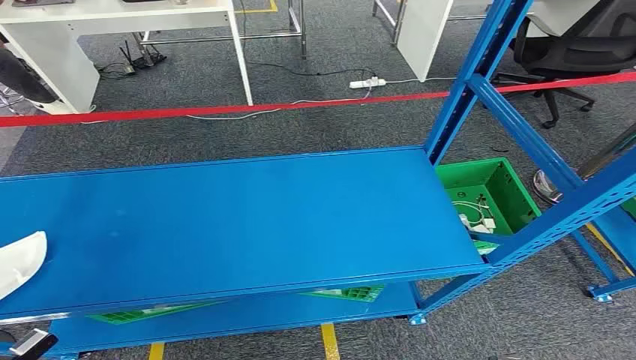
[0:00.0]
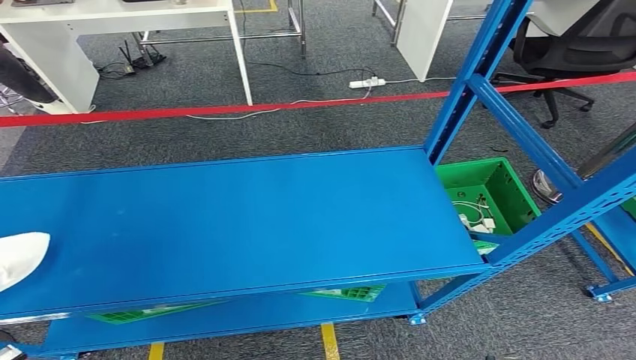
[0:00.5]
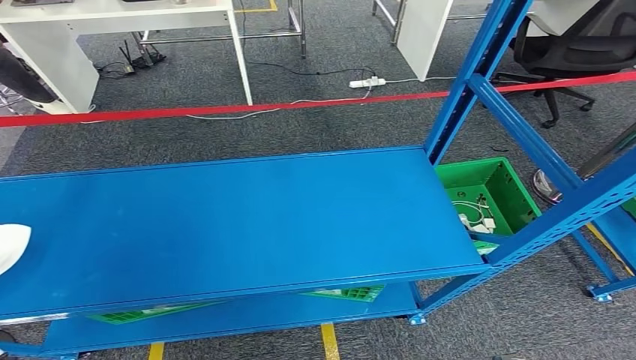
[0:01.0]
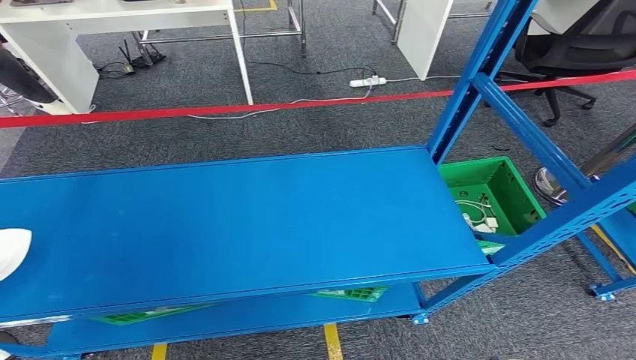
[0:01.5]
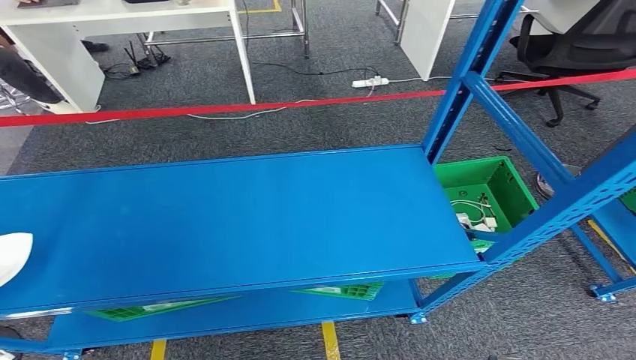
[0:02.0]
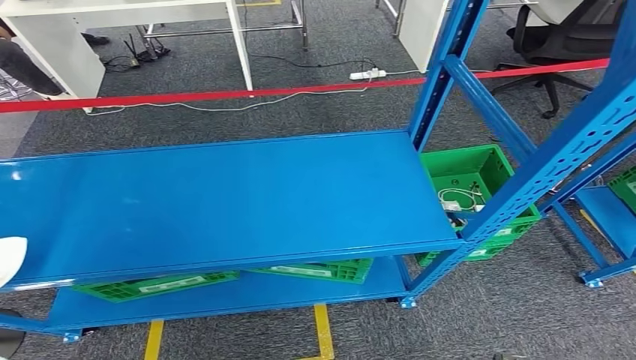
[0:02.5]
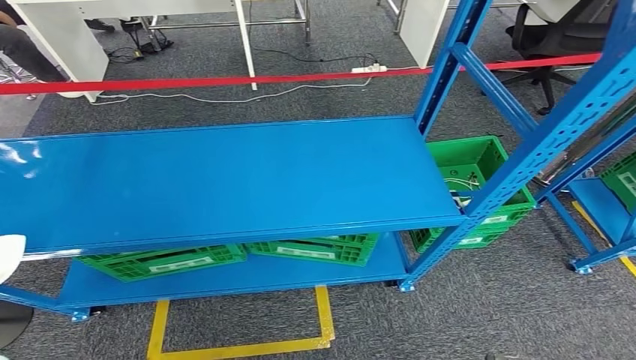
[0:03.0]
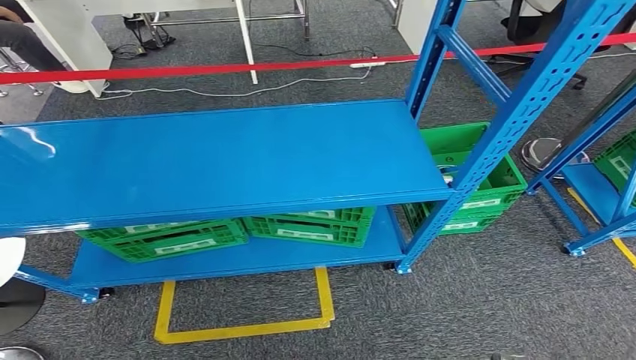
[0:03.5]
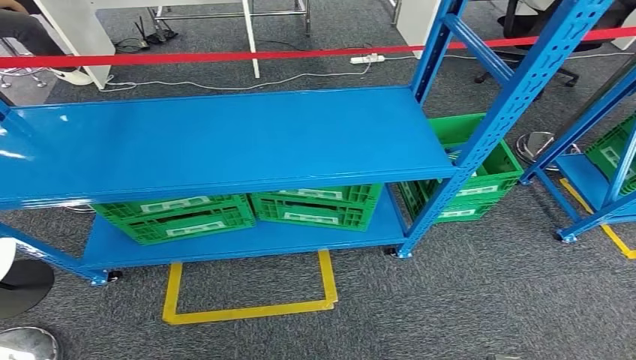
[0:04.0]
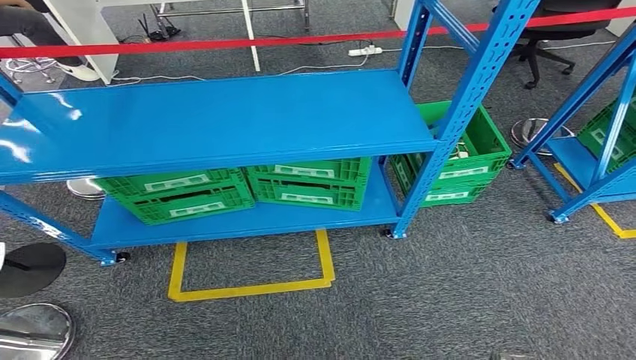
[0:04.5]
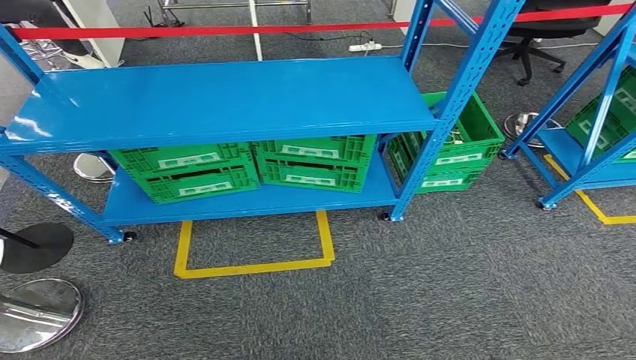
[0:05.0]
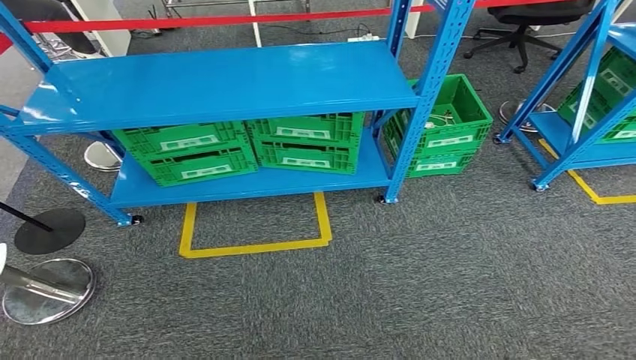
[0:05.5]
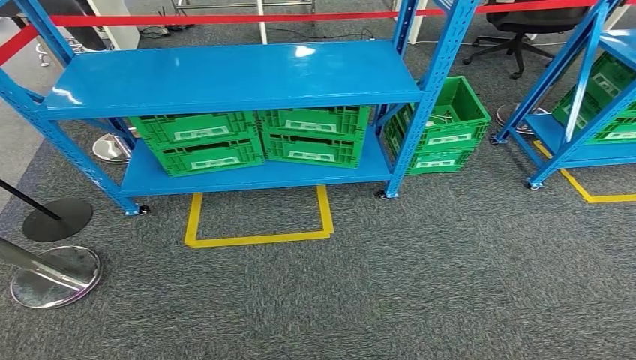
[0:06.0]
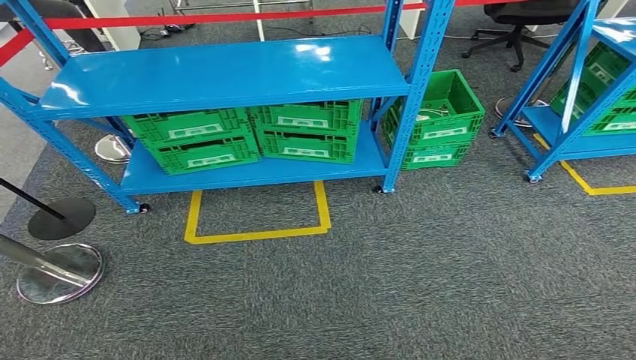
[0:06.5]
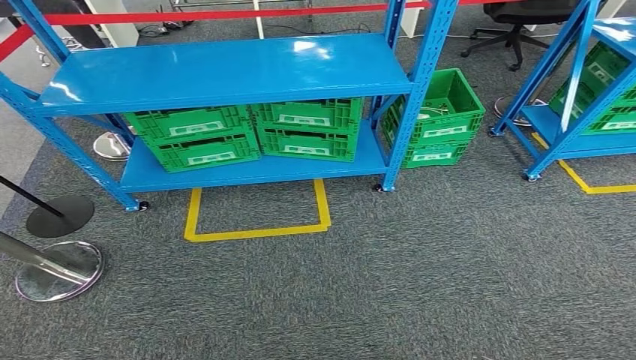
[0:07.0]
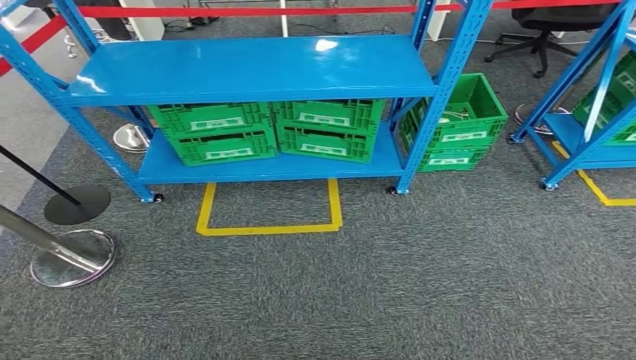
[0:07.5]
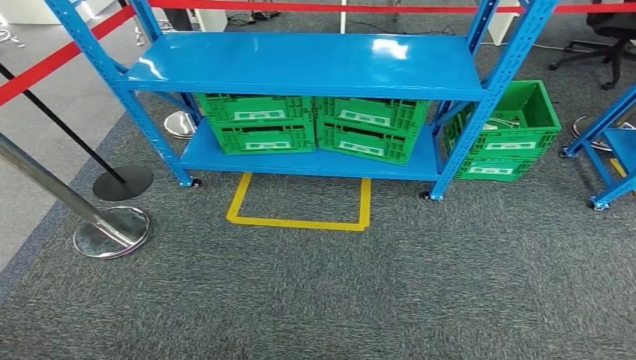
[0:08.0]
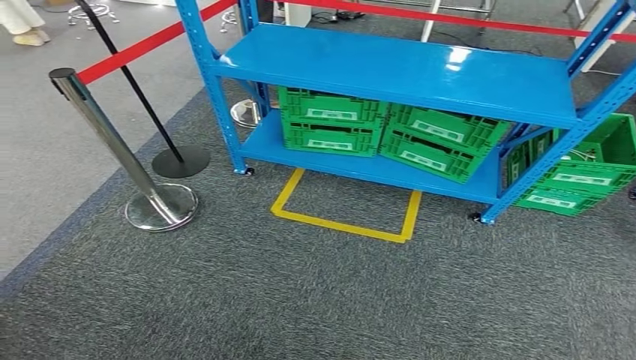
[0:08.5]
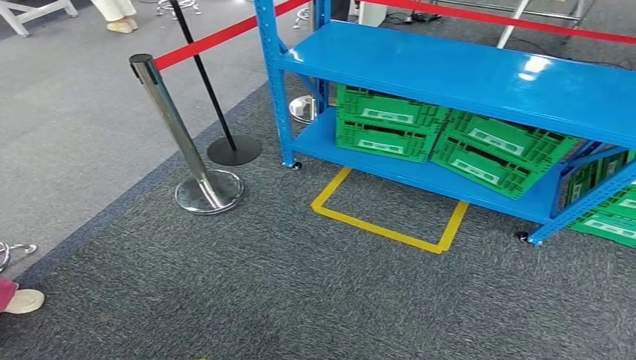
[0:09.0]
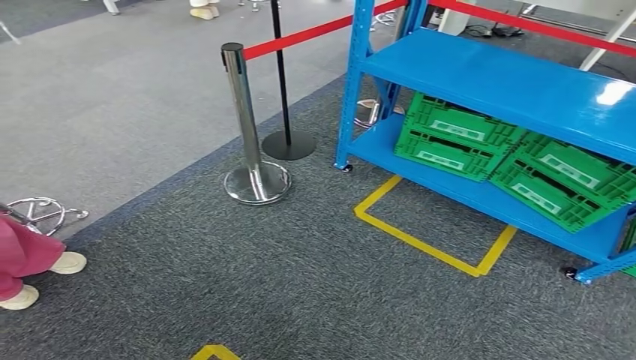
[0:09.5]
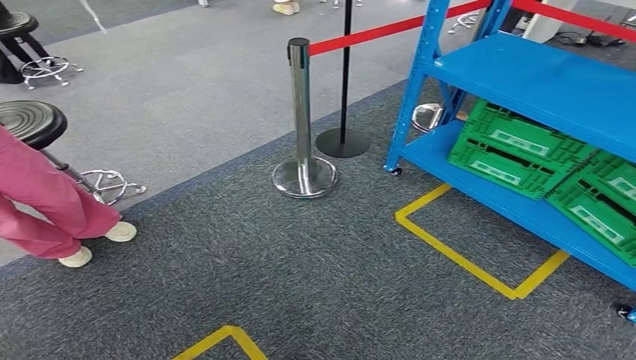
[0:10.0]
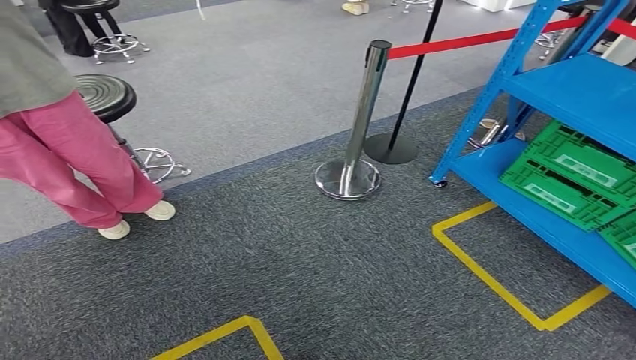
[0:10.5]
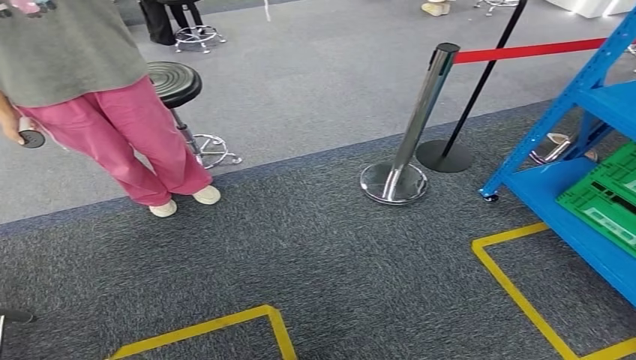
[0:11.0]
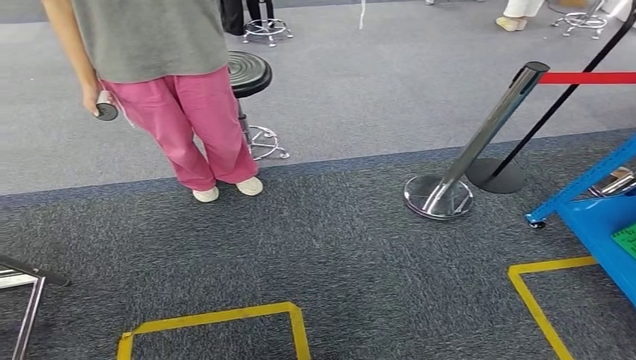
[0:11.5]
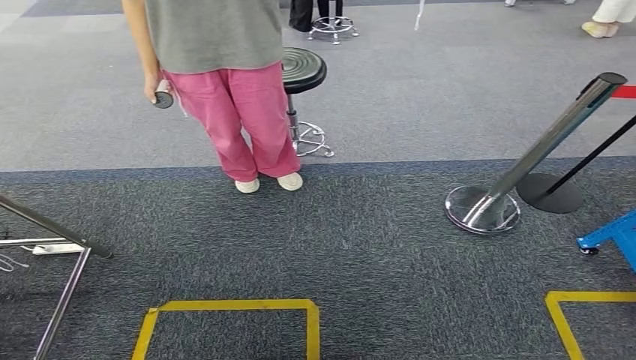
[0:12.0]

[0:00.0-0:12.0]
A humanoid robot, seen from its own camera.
Step, 0:00.0 to 0:04.5: Pick up the small component from the shelf.

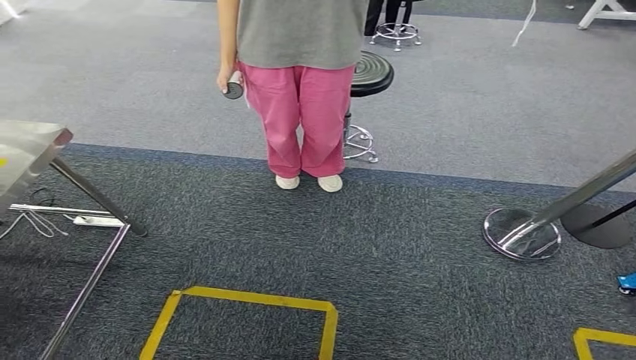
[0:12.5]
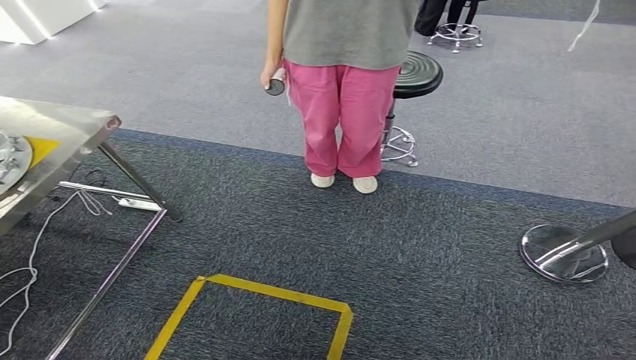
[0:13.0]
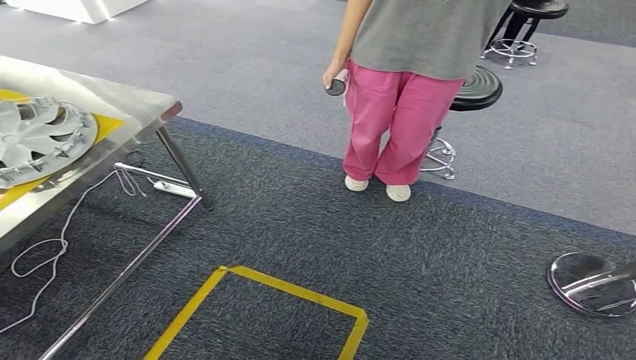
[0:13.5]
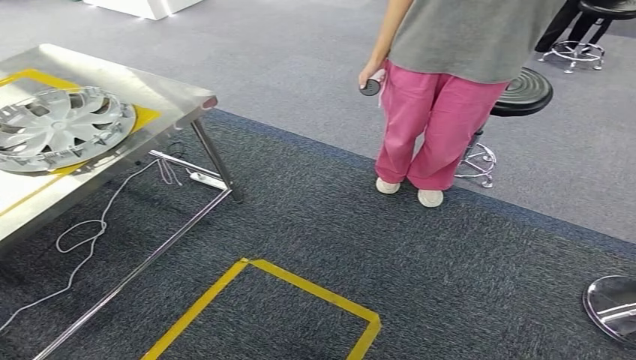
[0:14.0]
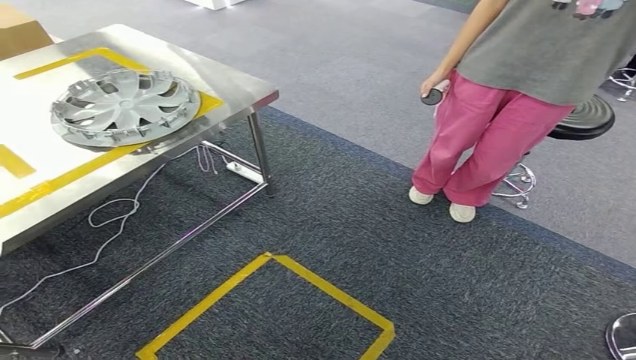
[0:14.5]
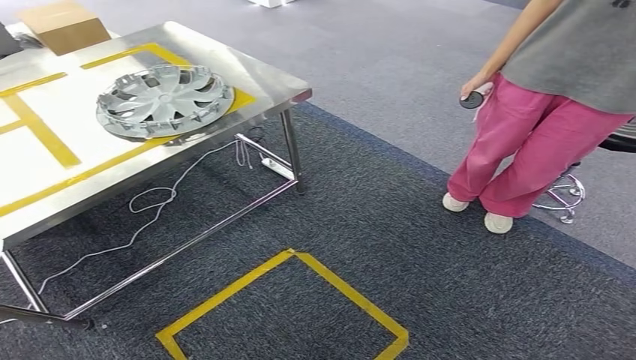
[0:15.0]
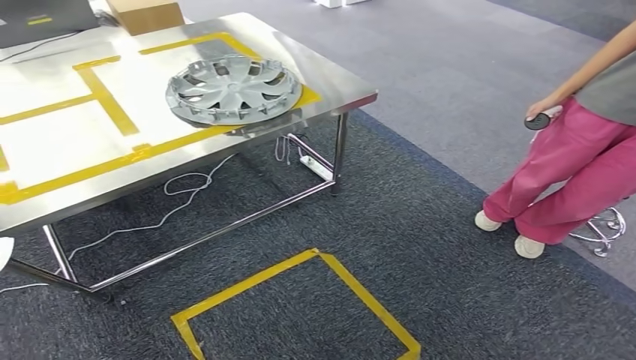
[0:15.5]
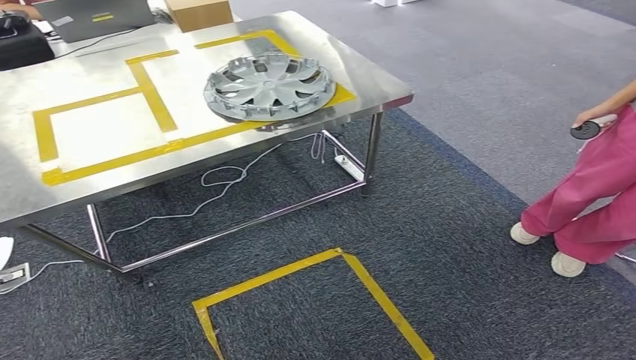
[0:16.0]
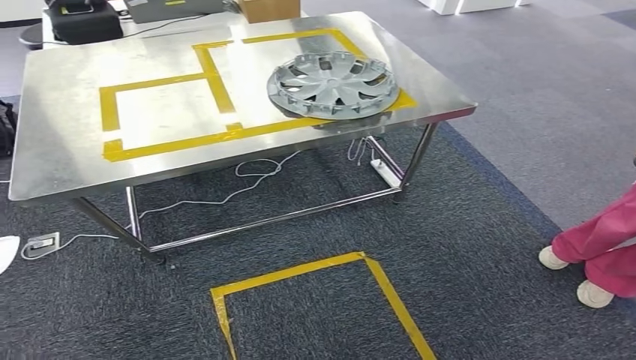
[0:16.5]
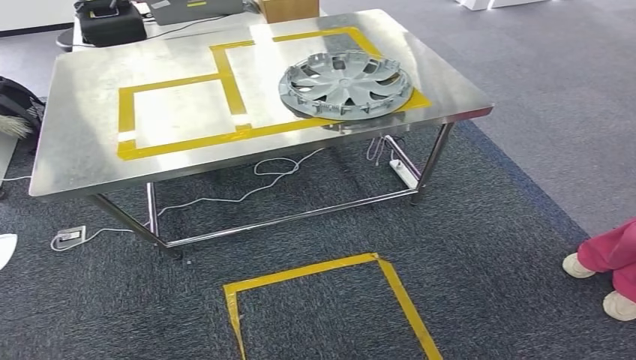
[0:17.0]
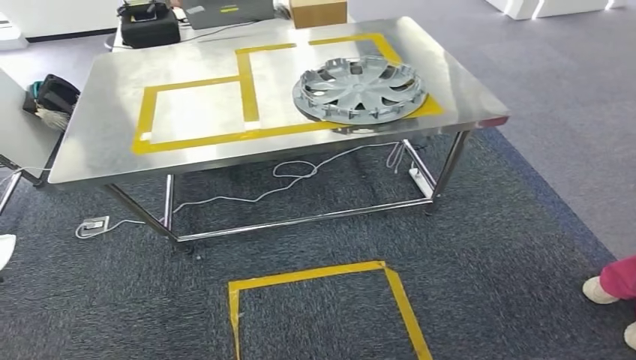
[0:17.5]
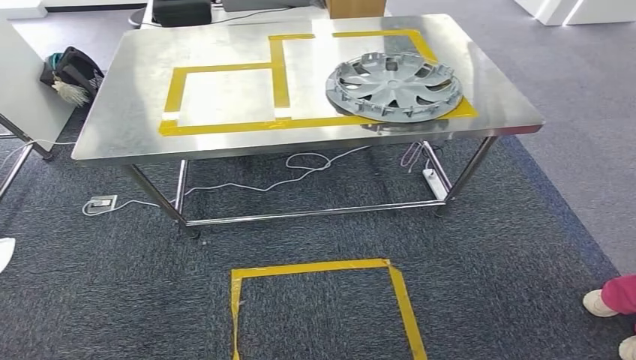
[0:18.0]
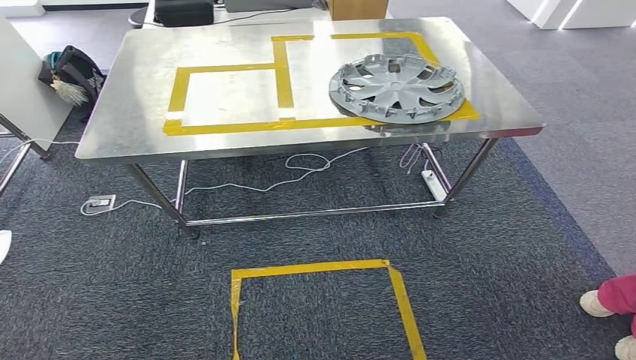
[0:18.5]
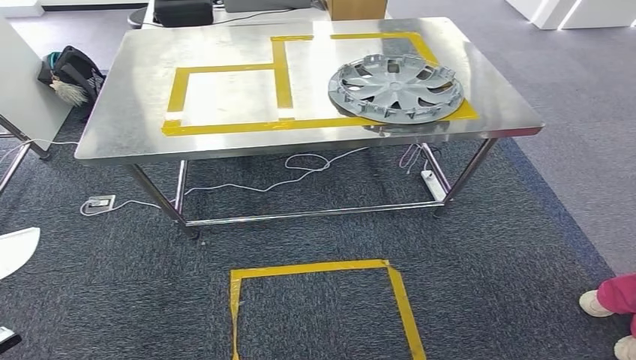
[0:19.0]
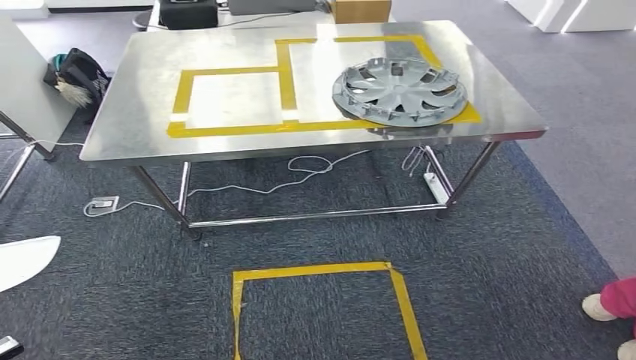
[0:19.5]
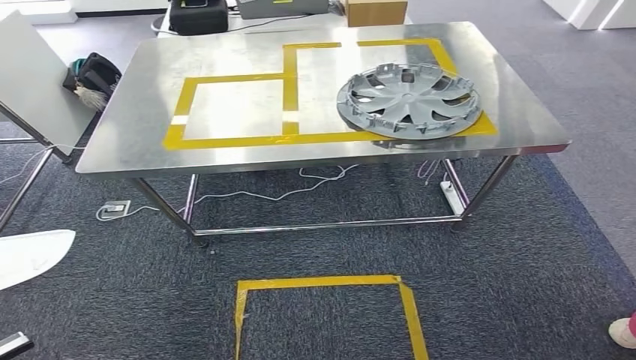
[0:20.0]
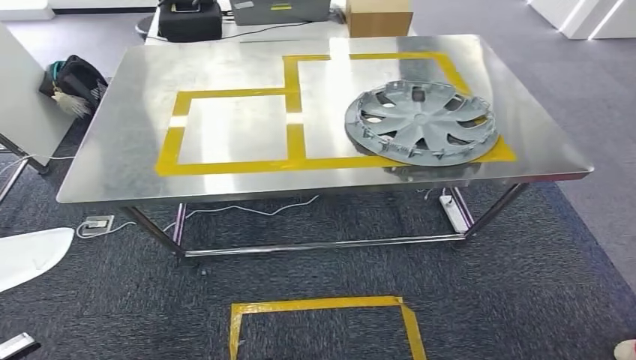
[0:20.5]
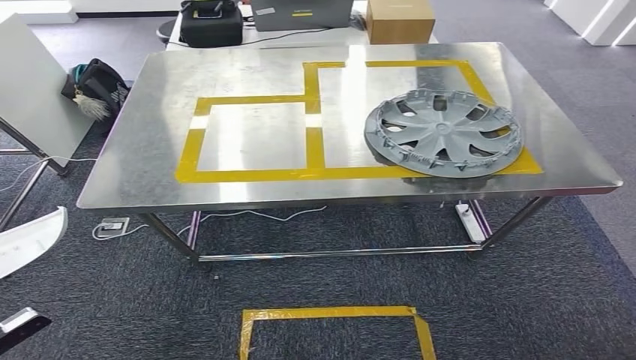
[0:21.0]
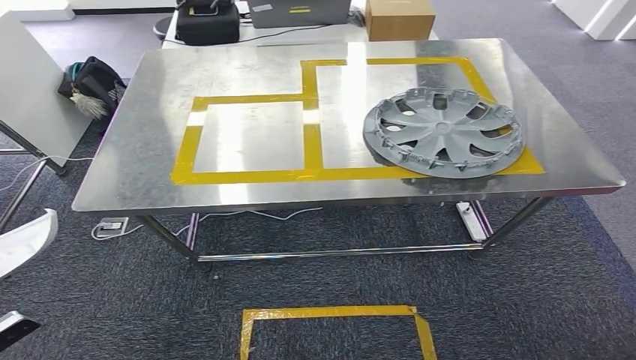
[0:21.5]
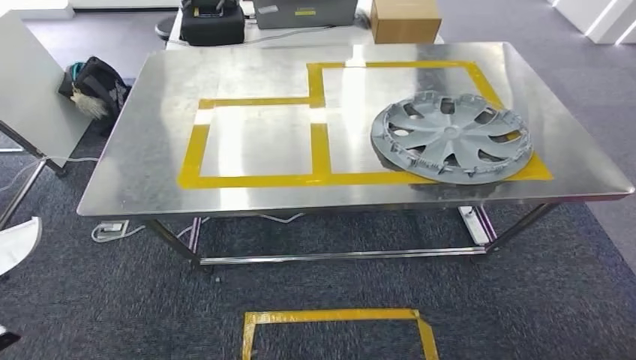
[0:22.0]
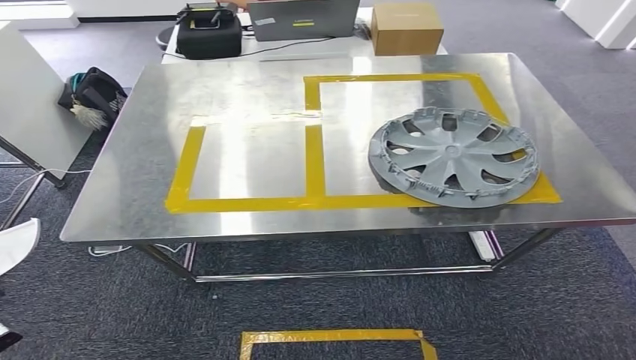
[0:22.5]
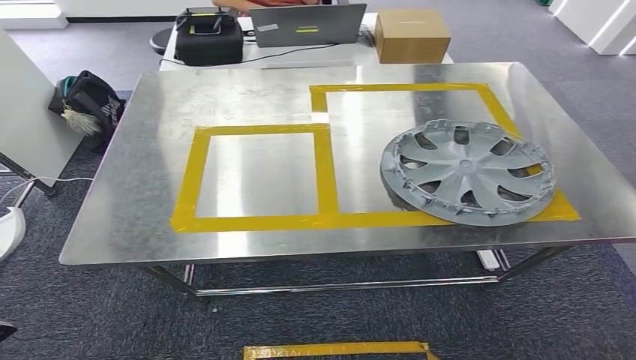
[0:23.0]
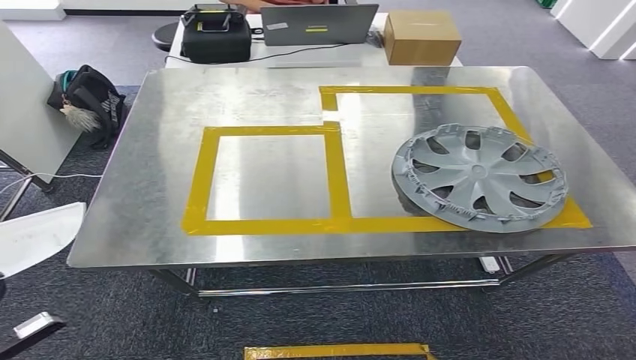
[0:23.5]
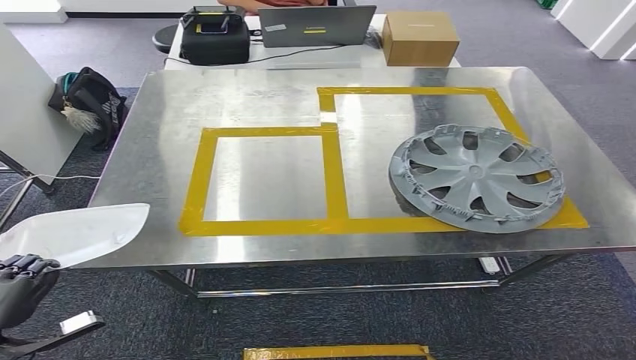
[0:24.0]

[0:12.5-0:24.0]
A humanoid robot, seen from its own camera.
Step, 0:12.5 to 0:20.5: Move the small component to the workbench.
